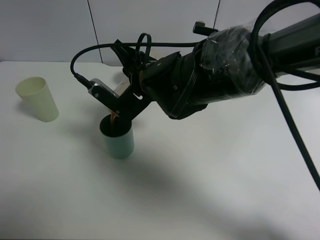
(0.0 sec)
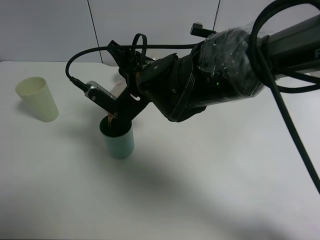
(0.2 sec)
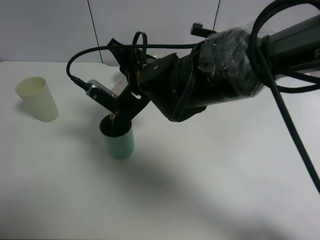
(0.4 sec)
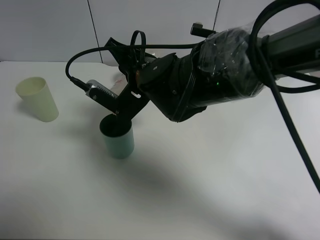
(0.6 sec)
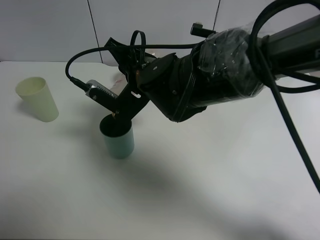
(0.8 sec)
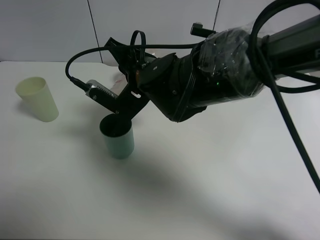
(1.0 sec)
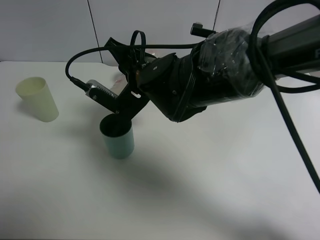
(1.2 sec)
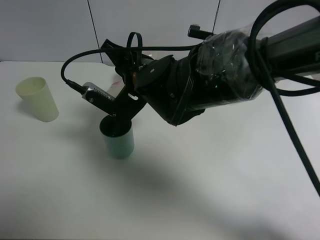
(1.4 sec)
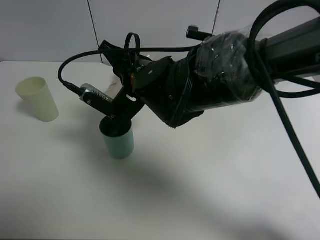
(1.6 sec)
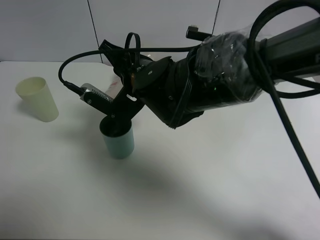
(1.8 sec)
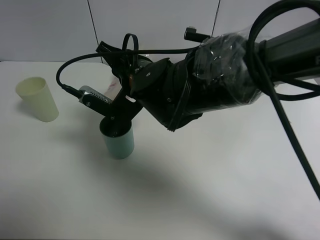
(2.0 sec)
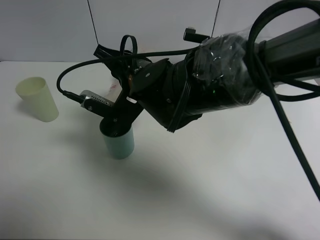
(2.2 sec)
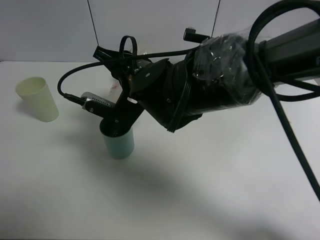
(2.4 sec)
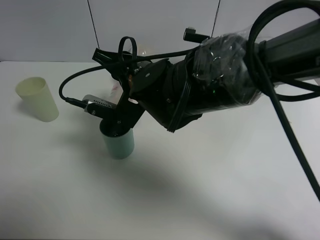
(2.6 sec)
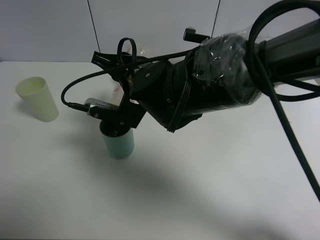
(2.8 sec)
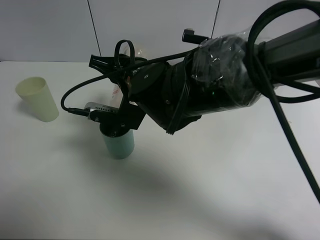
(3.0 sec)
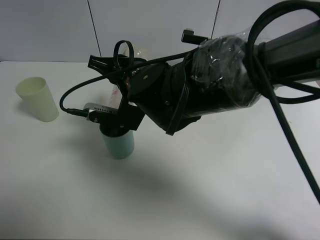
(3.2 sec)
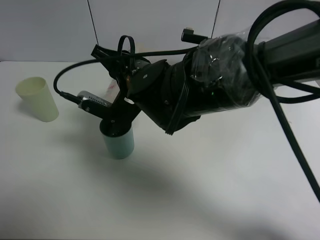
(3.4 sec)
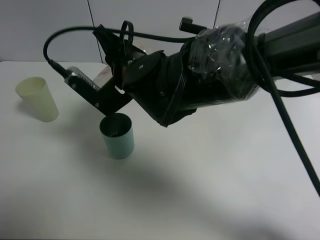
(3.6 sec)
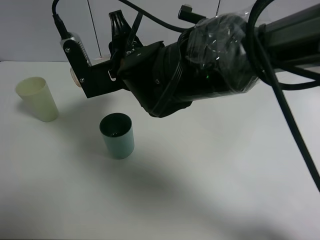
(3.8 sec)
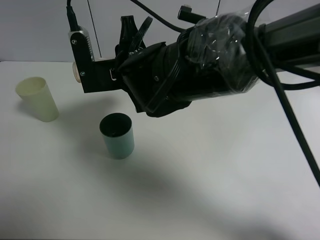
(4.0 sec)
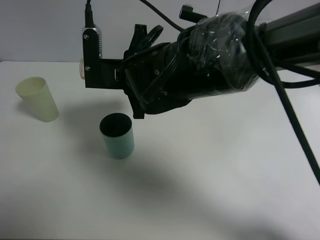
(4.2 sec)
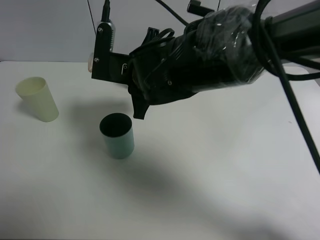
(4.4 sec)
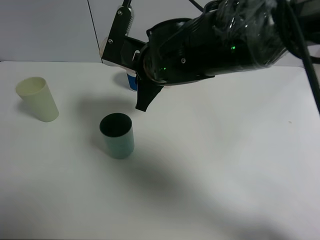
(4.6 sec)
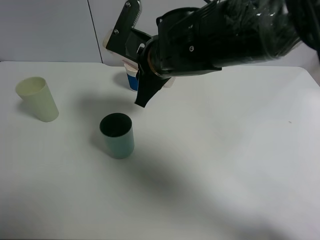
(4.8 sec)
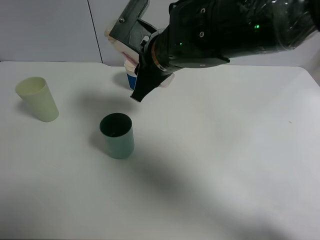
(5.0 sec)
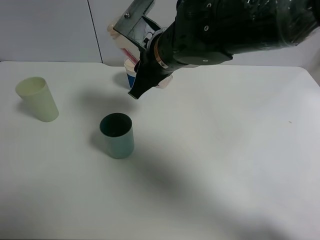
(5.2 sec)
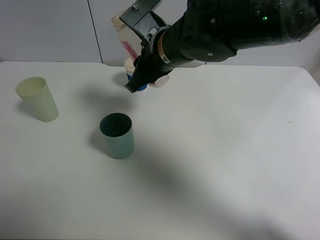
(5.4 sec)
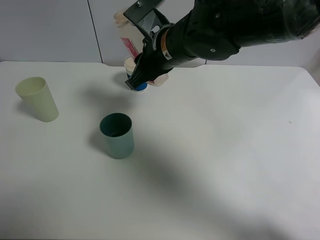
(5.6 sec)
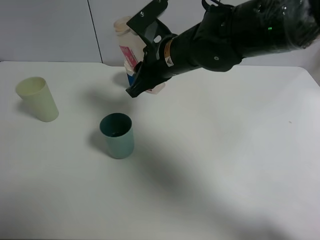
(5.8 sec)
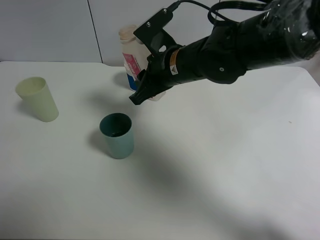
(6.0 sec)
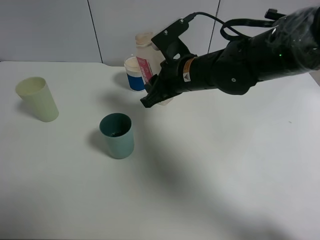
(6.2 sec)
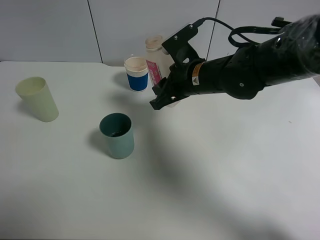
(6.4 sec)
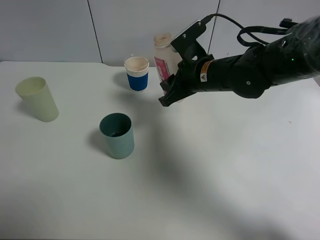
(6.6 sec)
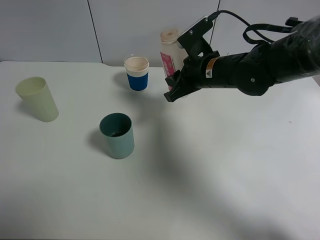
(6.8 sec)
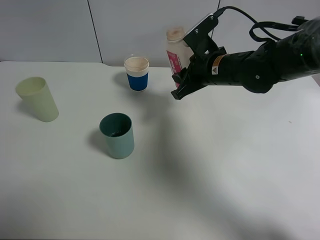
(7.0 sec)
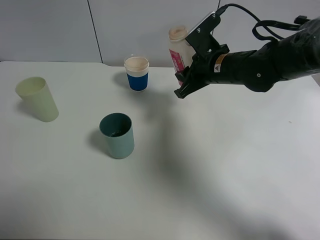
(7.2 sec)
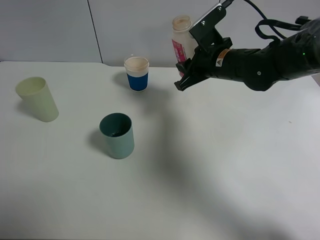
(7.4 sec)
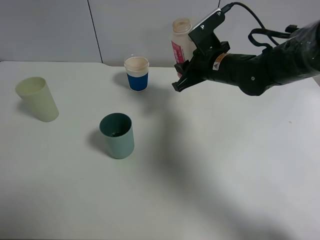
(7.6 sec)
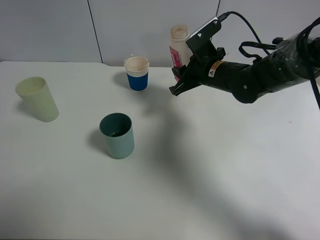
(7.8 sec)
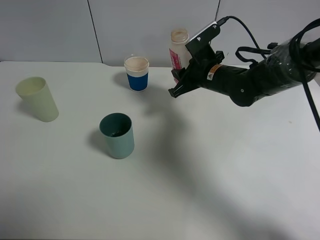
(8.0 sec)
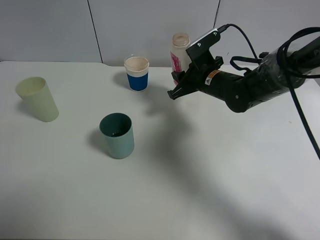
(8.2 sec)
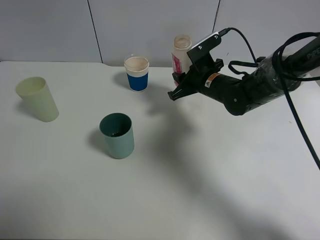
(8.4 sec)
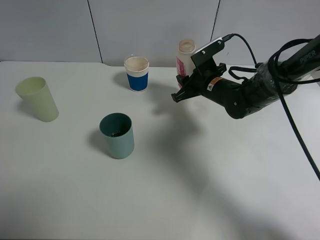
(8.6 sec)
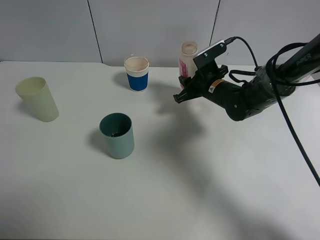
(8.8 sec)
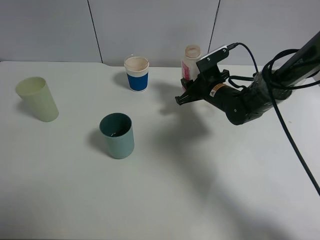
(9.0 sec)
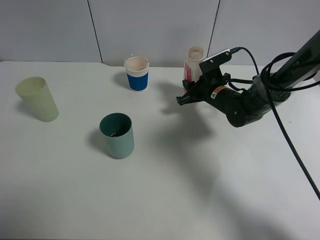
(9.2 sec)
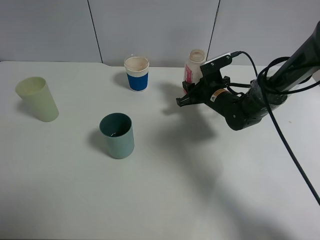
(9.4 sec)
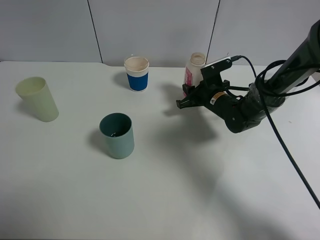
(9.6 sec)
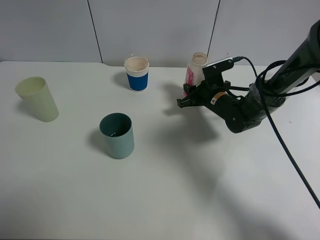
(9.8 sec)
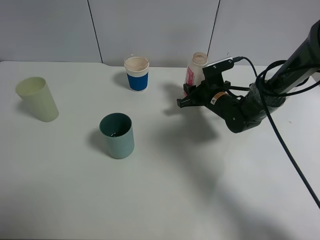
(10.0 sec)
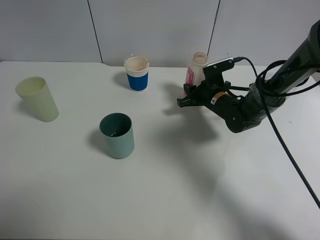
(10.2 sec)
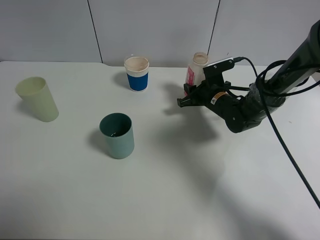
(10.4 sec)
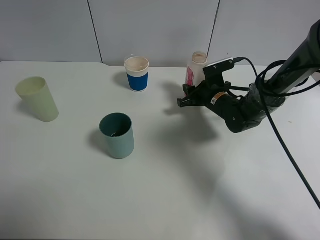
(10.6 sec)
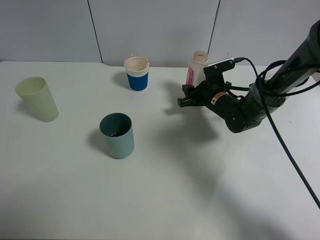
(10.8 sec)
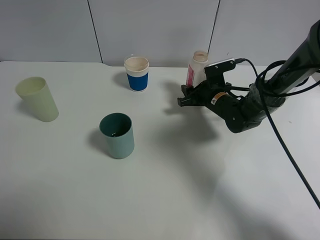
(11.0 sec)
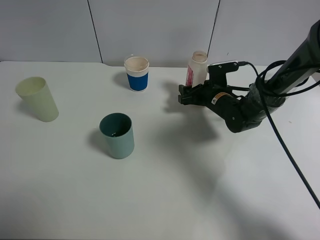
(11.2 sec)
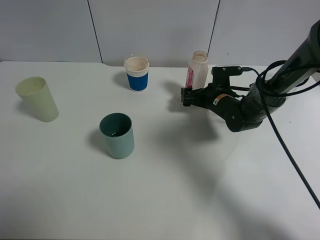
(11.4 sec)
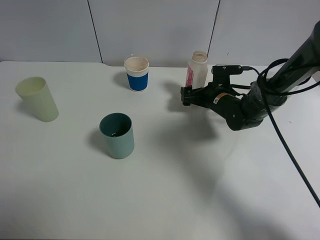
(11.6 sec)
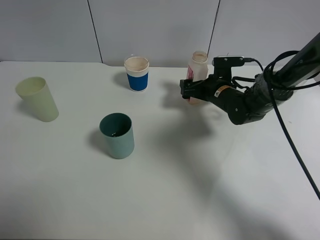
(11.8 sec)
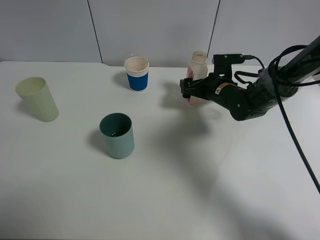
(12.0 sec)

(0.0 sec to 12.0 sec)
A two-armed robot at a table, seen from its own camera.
Task of the whole recording: use a clamp to hold the bottle of the drink, pour the beverage into a random cup, then clamp the cup containing the drink and pour the drink into another random cup.
Step, 0.0 sec - 3.6 sec: Pour the drink into the blue plastic cup with right gripper.
Step, 3.8 sec - 11.6 sec: Place the drink bottle on the table with right gripper.
0.0 sec - 1.6 sec: There are only small adjustments of the grippers.
1.6 sec - 3.0 sec: The grippers stay close to where they were, moving slightly.
4.4 sec - 6.0 sec: The right gripper goes approximately 5 cm to the right.
6.0 sec - 7.6 sec: The right gripper moves to the right and forward, some 10 cm.
7.6 sec - 9.0 sec: The right gripper heads downward, covering some 10 cm.
9.0 sec - 10.4 sec: There are only small adjustments of the grippers.
10.4 sec - 12.0 sec: The right gripper opens.

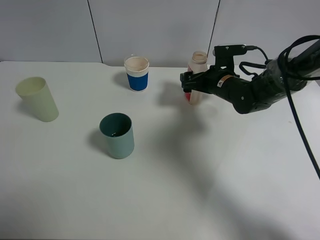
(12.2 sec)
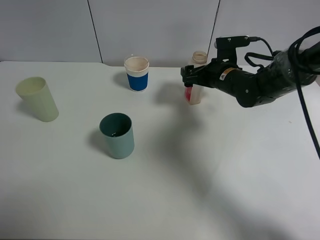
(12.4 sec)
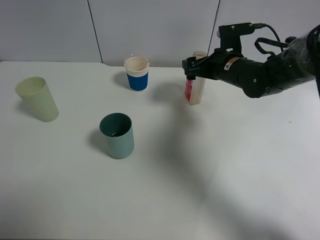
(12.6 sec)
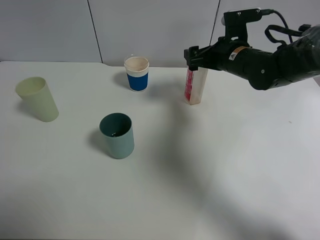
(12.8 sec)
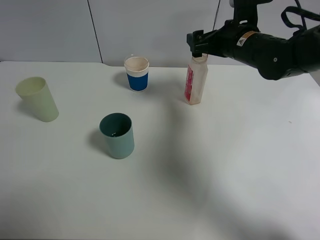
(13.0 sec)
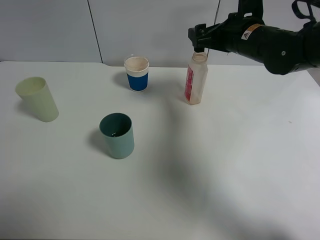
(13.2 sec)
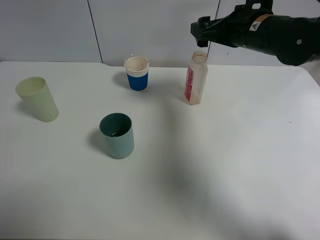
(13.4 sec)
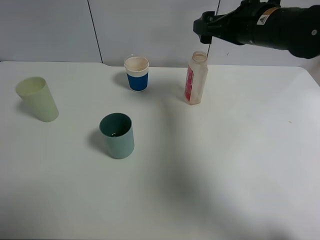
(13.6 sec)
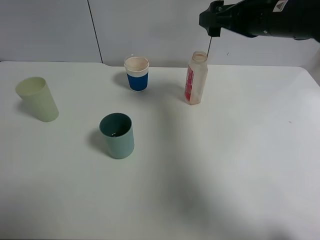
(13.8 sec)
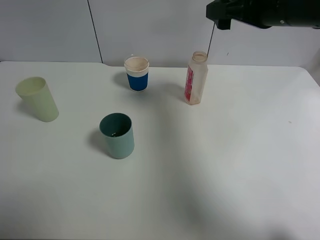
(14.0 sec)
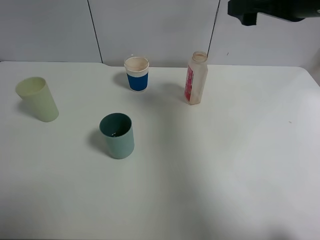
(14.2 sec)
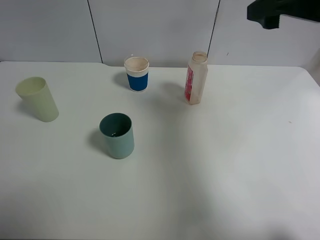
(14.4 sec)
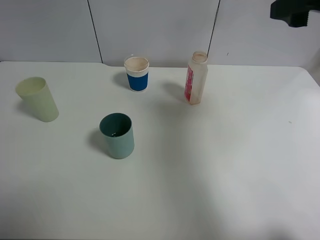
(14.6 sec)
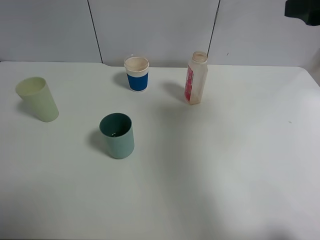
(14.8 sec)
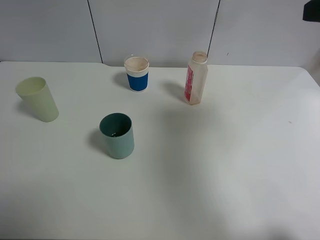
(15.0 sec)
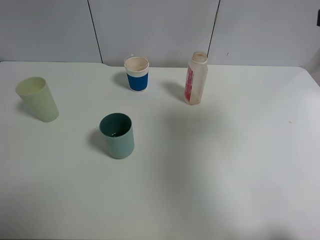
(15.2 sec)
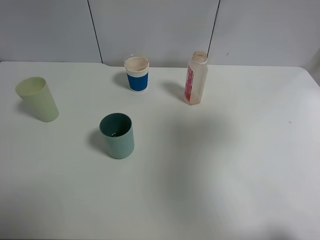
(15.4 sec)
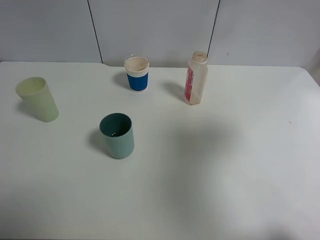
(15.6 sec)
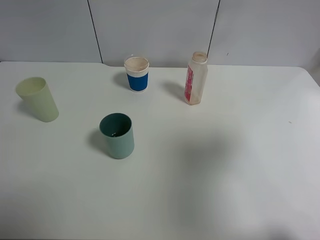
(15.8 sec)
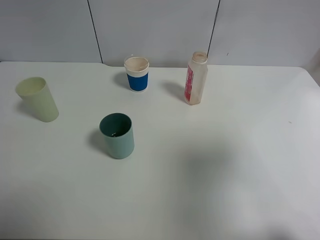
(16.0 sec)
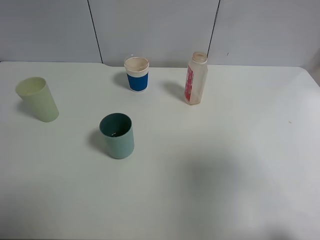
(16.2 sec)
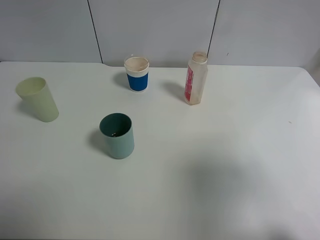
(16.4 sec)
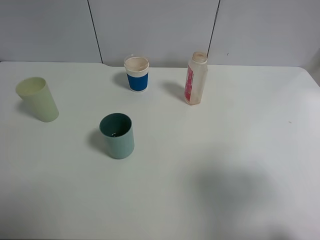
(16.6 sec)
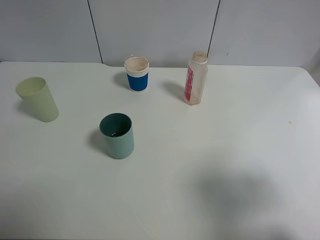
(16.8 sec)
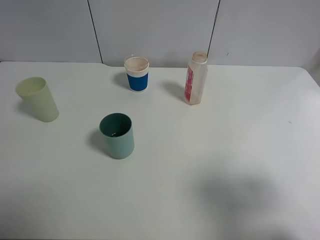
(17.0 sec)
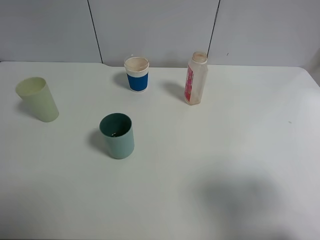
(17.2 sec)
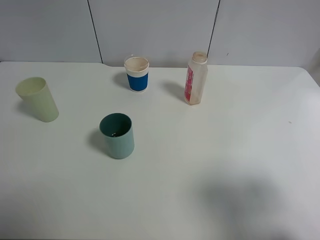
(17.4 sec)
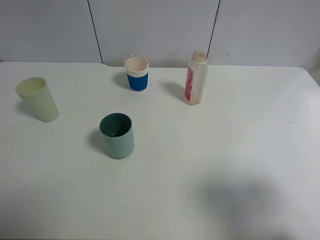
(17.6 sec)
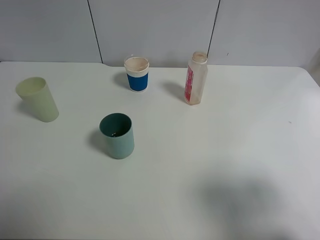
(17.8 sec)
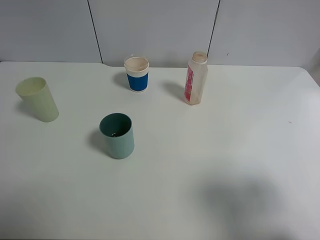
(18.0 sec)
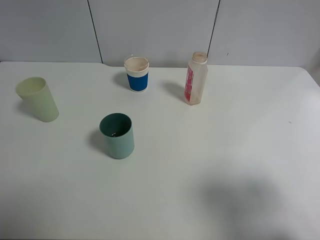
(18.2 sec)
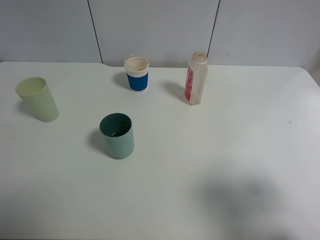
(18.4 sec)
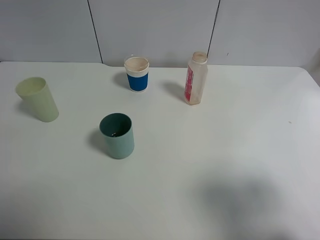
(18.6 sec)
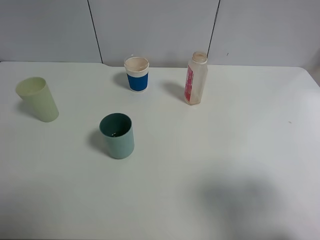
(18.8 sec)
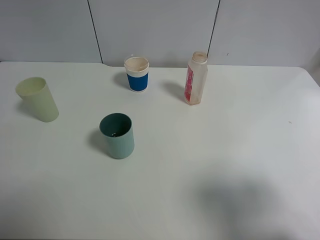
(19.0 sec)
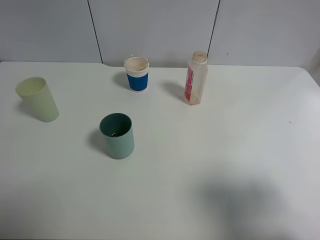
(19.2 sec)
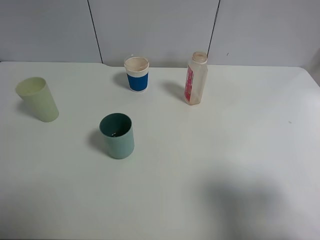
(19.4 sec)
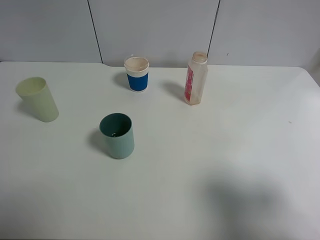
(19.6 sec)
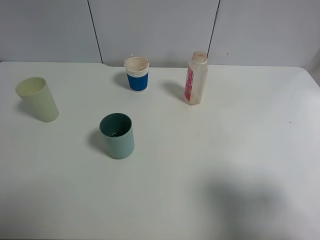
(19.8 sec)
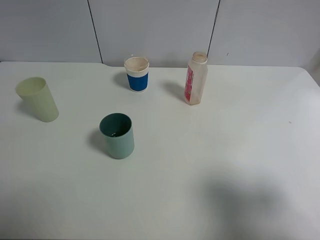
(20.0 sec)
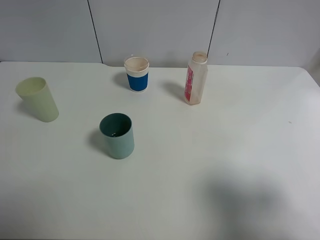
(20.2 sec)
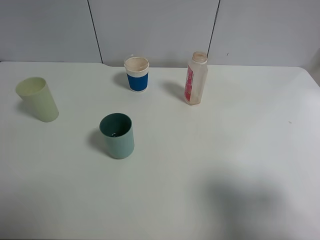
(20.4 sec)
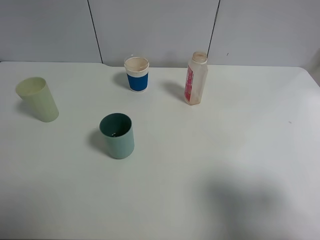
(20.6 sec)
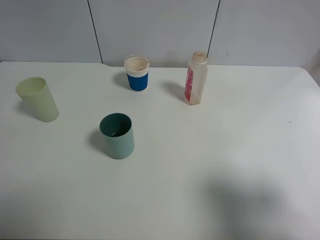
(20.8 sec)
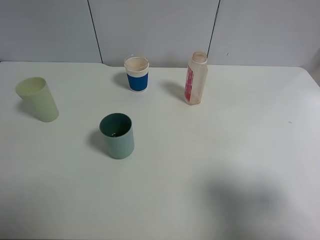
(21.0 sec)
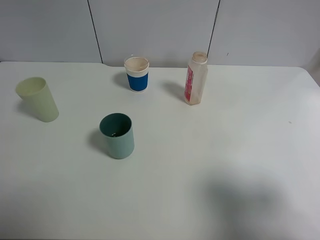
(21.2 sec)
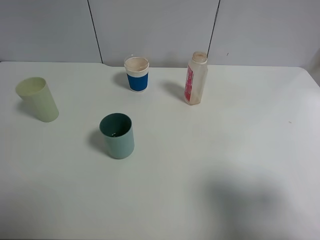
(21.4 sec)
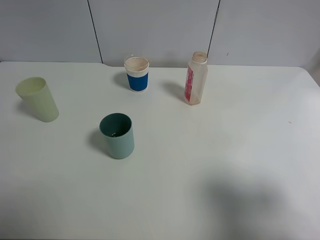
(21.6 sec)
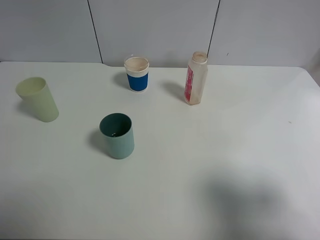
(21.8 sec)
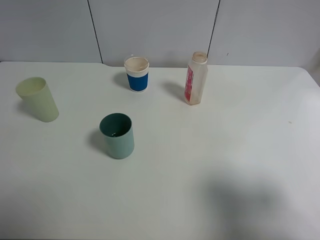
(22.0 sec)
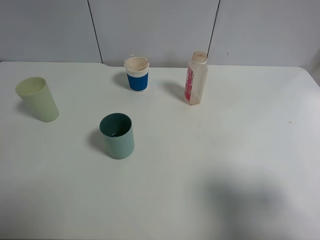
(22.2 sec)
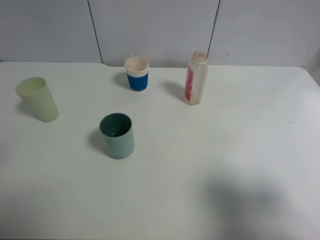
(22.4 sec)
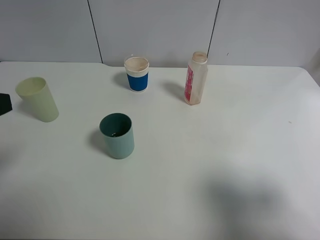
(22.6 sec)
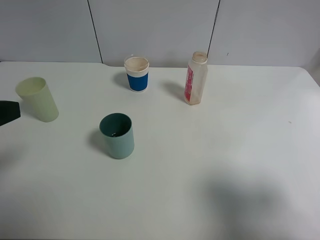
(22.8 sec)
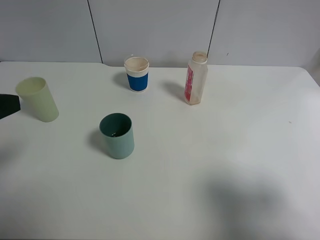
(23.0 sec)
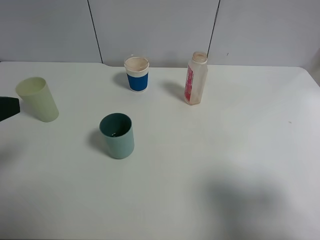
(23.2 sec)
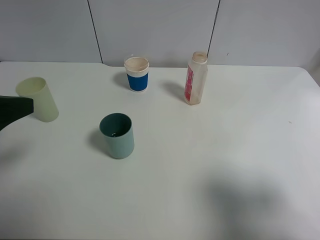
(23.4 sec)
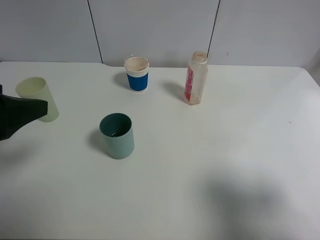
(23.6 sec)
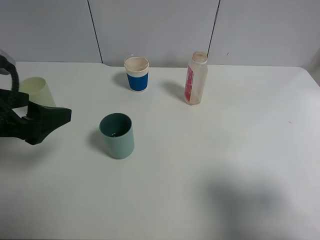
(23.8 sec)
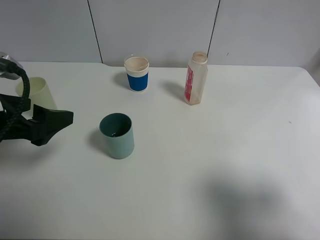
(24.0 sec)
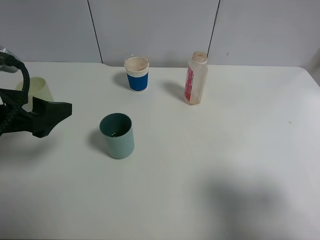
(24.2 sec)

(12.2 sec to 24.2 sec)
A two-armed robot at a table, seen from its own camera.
Task of the whole recording: use a clamp to hold the bottle of the drink, pour the beverage into a random cup, then clamp the cup containing the drink and pour the drink into another random cup.
12.2 sec - 13.8 sec: The right gripper shifts roughly 20 cm upward.
13.8 sec - 15.2 sec: The right gripper travels backward, to the right and upward by about 20 cm.
15.2 sec - 16.6 sec: The right gripper goes approximately 15 cm backward and downward.
19.8 sec - 21.2 sec: Neither gripper changes place.
22.6 sec - 24.2 sec: The left gripper shifts roughly 10 cm forward and downward.
